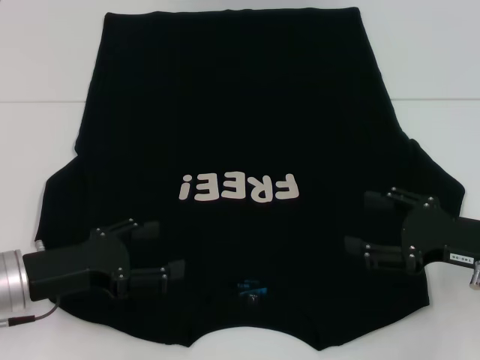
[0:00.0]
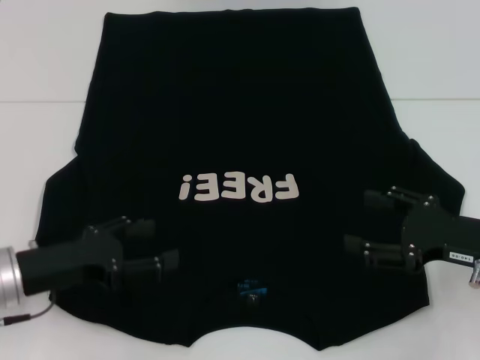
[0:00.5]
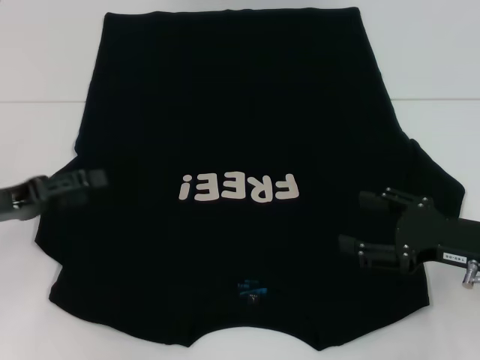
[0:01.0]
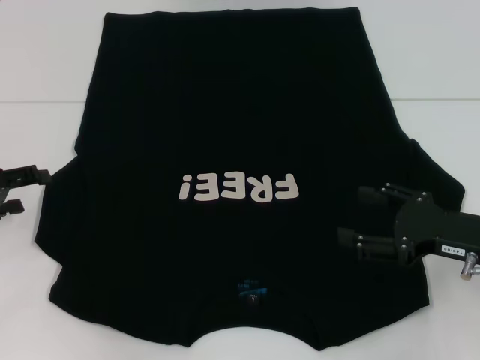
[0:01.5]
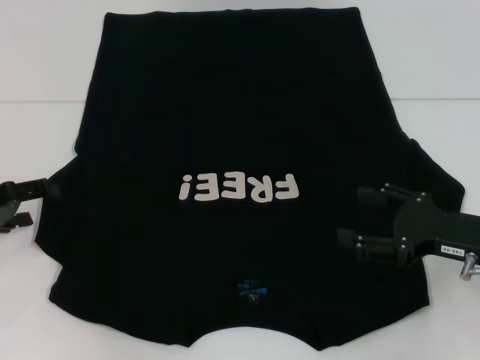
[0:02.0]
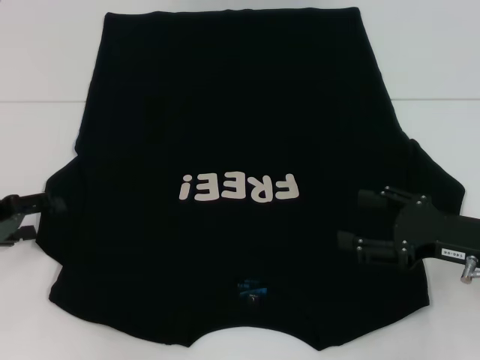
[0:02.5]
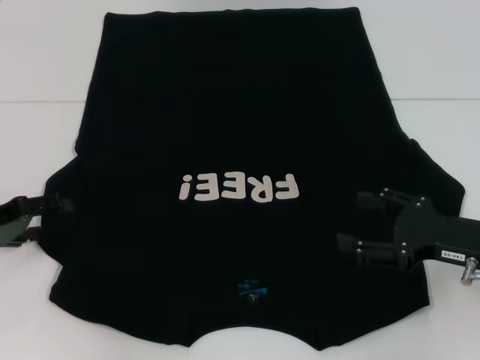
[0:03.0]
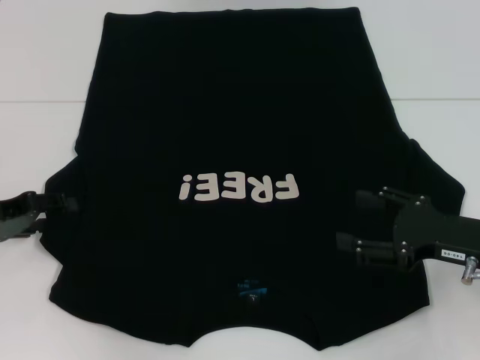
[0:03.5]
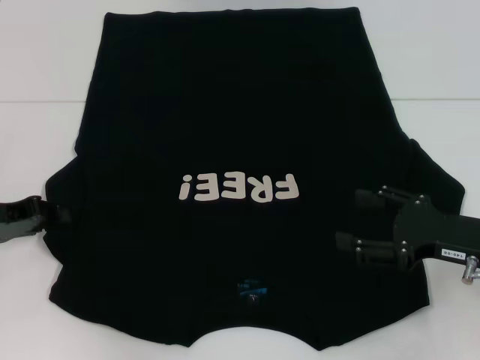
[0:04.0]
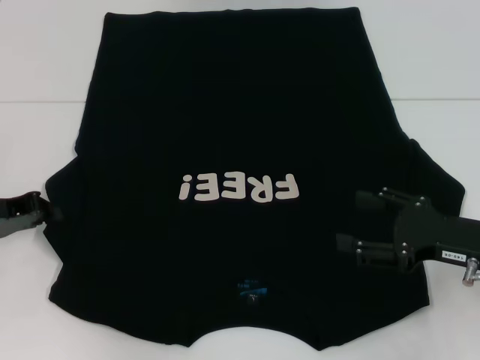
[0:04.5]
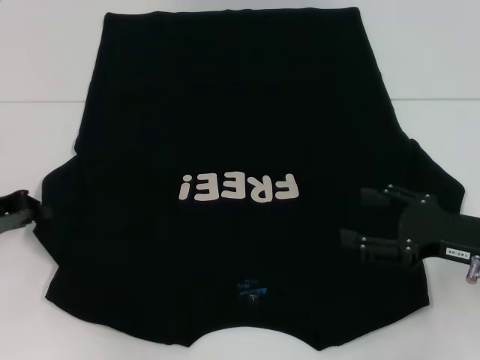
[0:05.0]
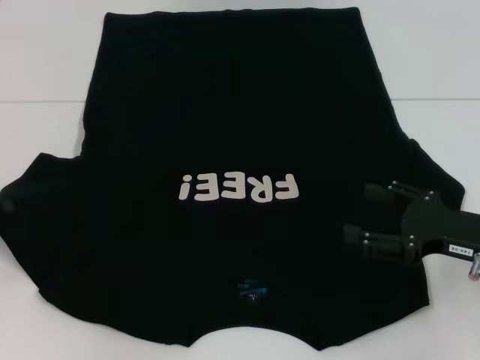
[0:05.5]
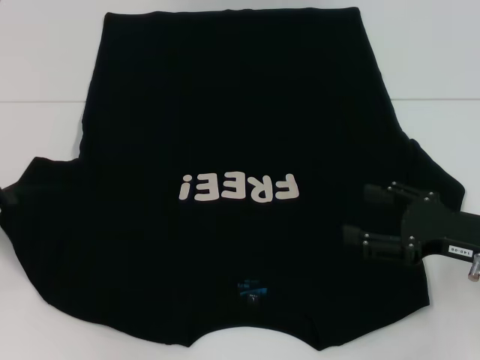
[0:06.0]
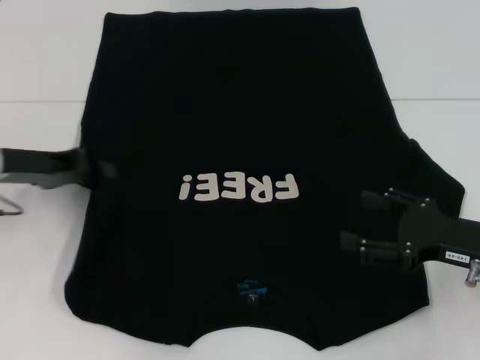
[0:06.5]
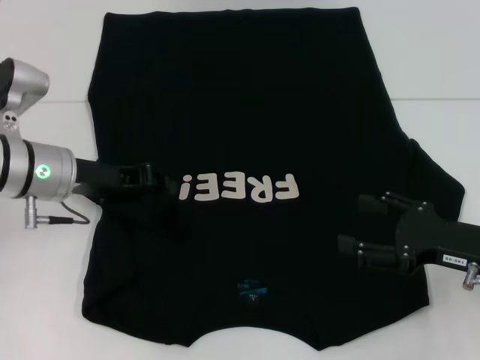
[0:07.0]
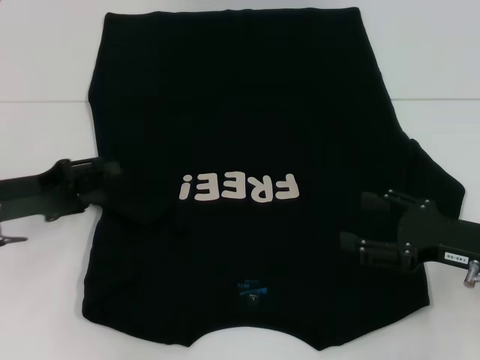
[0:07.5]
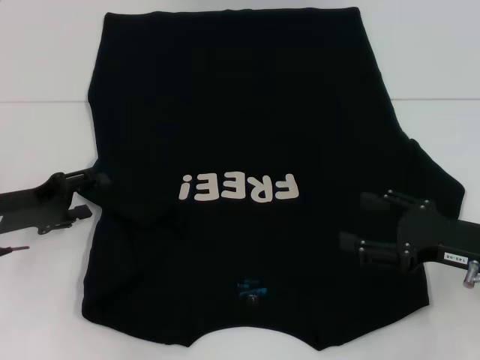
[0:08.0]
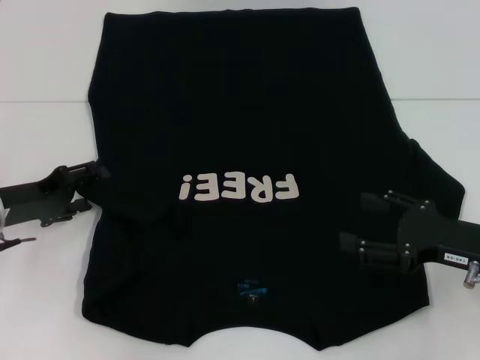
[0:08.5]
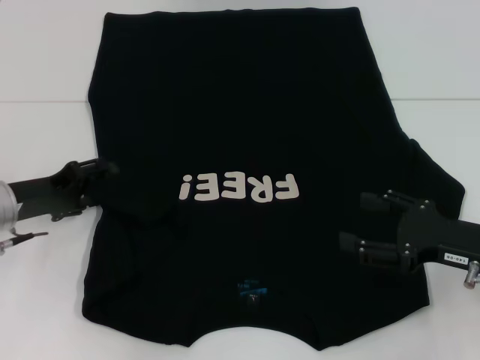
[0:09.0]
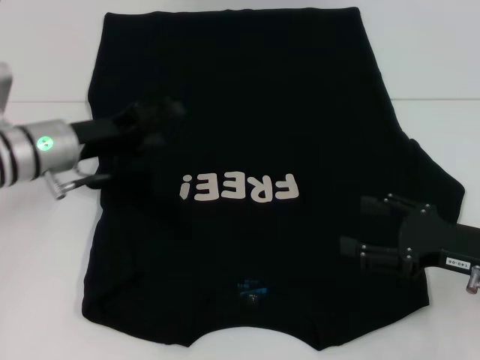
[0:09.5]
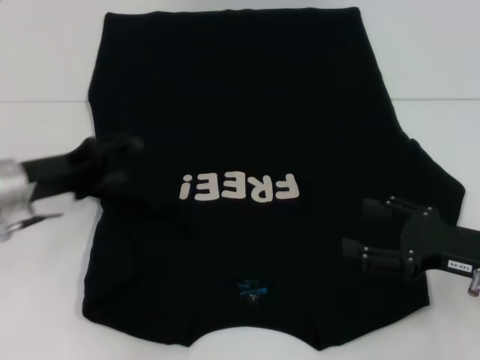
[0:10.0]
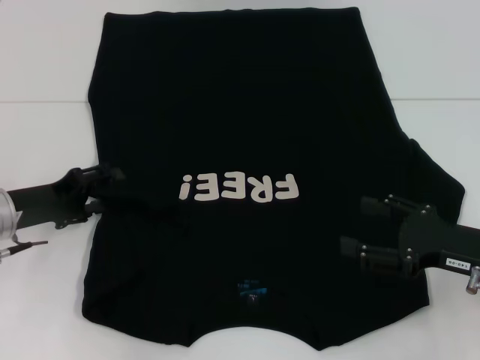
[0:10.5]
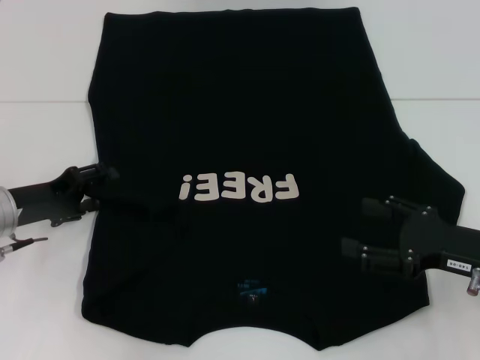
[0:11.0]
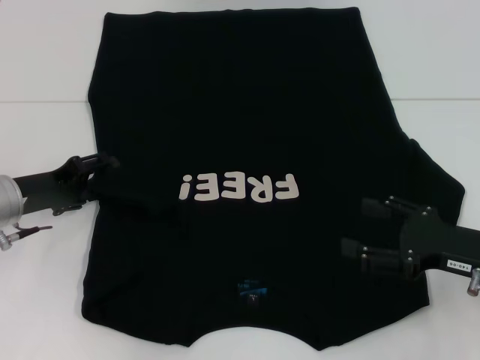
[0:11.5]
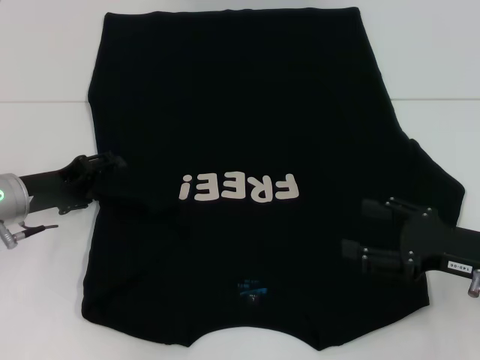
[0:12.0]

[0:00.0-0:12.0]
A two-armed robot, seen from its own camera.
0.0 to 2.0 s: The left gripper moves to the left and forward, some 10 cm.
2.0 to 4.0 s: The left gripper closes its fingers.
4.0 to 6.0 s: The left gripper shifts by approximately 5 cm, and closes its fingers.
6.0 to 8.0 s: The left gripper shifts some 5 cm to the right, and opens.
10.0 to 12.0 s: The grippers make only small movements.

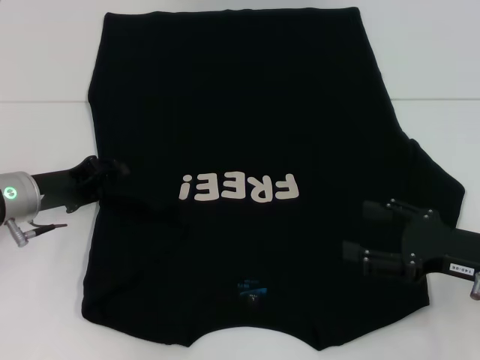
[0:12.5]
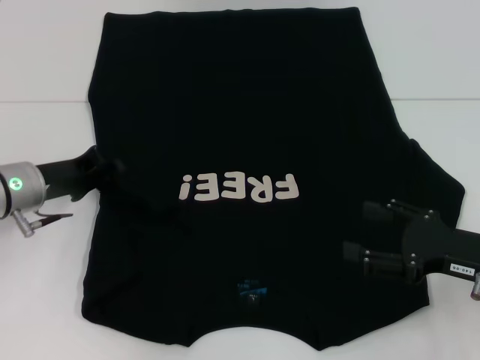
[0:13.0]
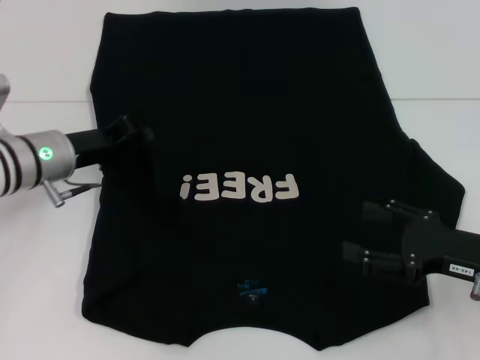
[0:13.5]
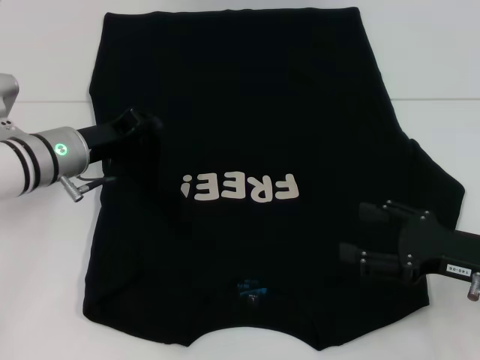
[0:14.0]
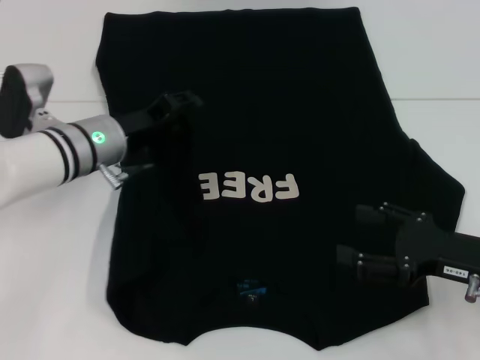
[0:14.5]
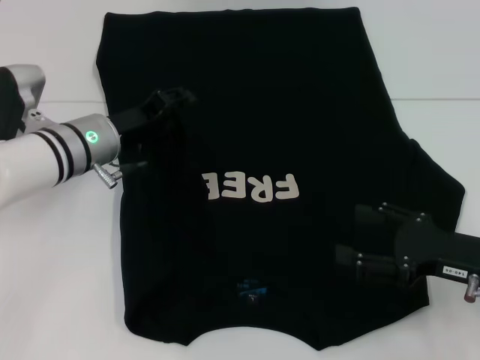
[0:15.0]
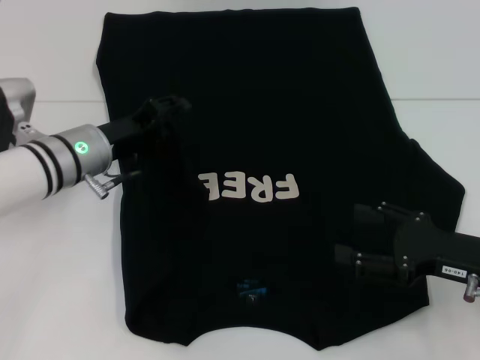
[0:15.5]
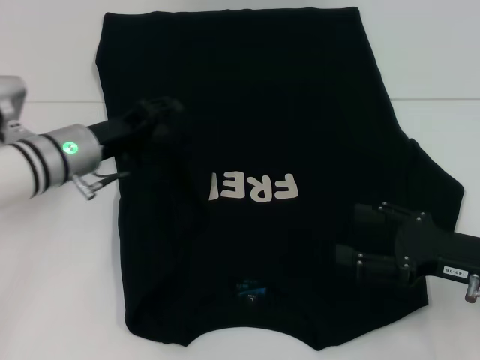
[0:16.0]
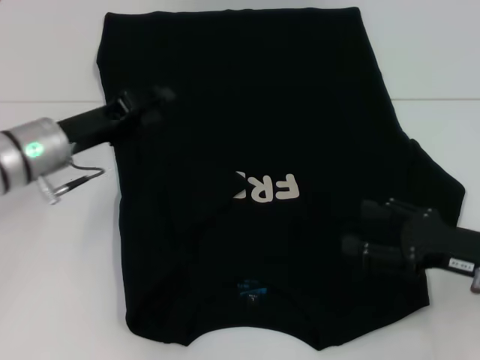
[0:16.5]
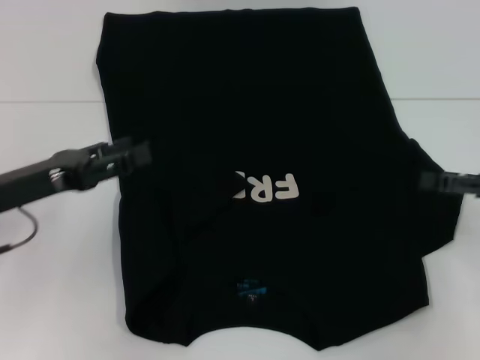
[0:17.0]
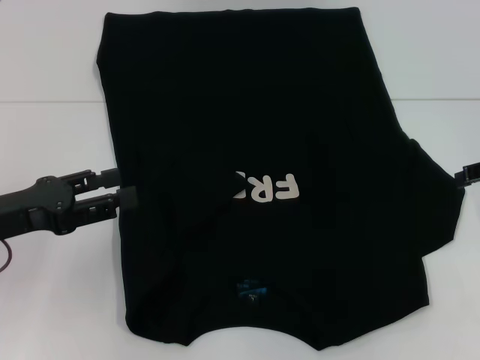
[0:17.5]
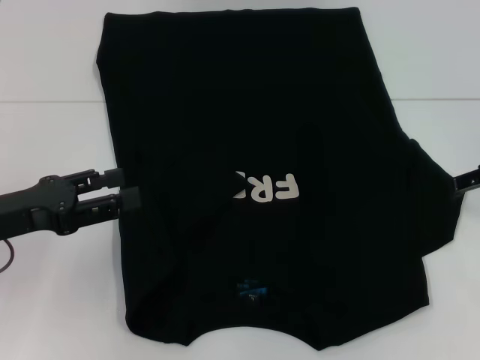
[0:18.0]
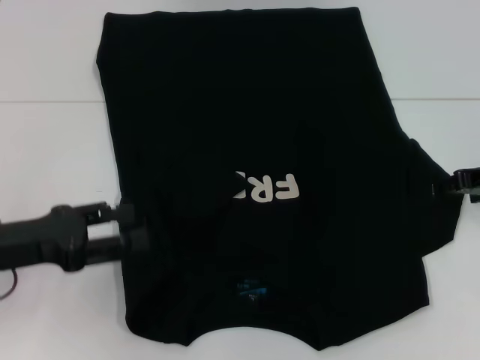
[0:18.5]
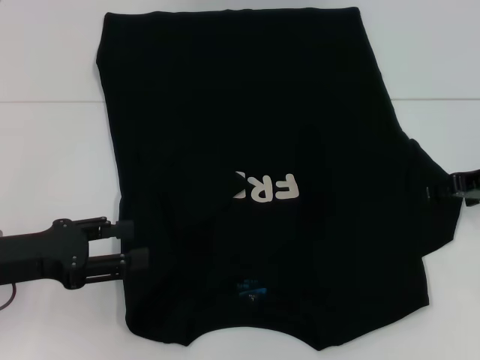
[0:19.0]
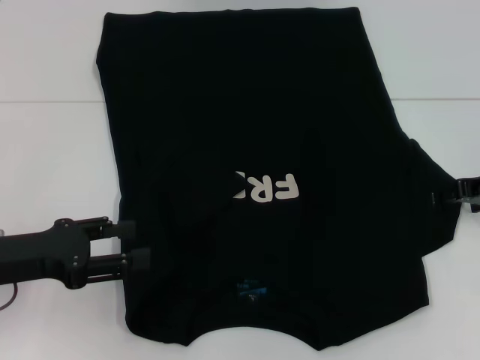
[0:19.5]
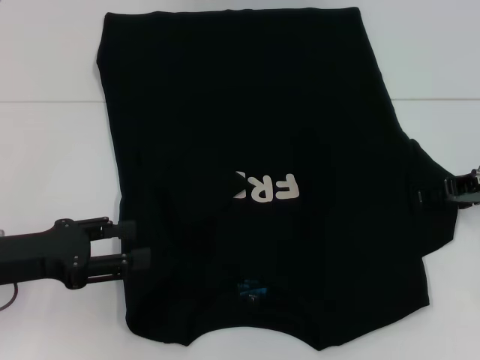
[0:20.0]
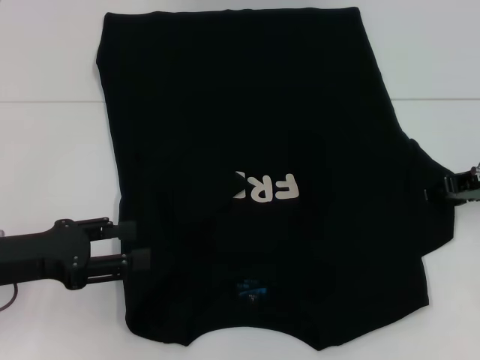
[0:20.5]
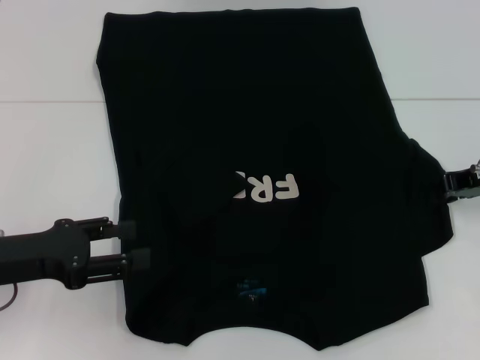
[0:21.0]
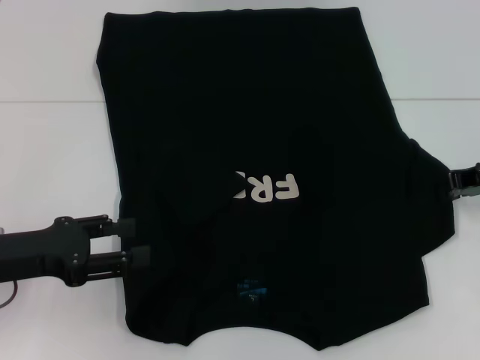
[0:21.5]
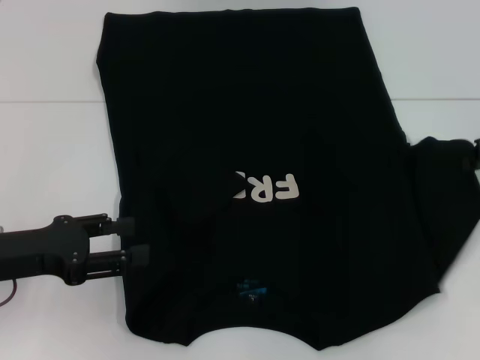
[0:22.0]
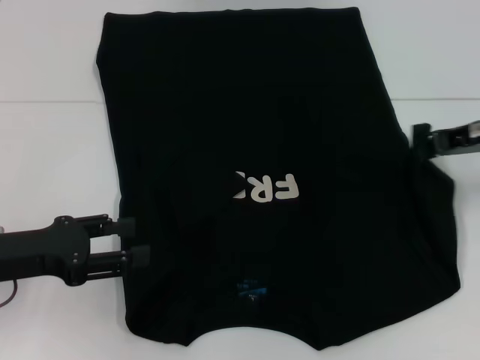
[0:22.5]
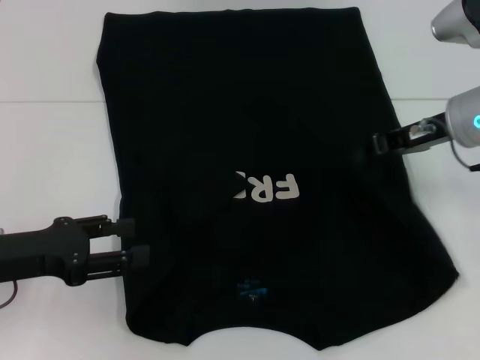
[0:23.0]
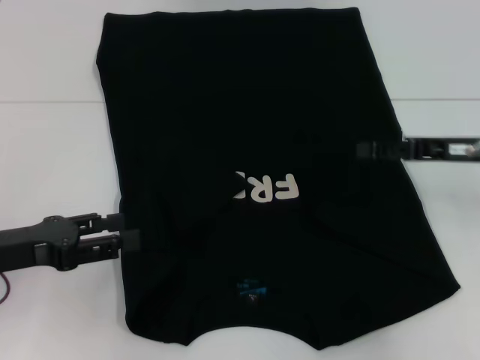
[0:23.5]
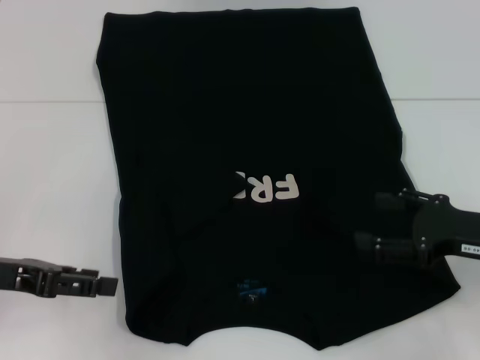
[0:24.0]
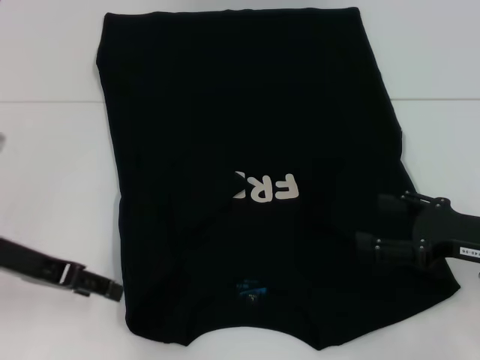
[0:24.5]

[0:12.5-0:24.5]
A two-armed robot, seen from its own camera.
Step, 12.5 to 16.0 s: Fold the bottom left sleeve with your left hand.
Step, 16.5 to 23.5 s: Fold the bottom right sleeve with your right hand.
12.5 to 14.5 s: The left gripper shifts approximately 10 cm to the right, and closes, then opens again.
14.5 to 16.5 s: The left gripper travels to the left by some 5 cm.
16.5 to 18.5 s: The right gripper goes approximately 15 cm forward and upward. Meanwhile the left gripper is displaced backward and to the left by some 10 cm.
18.5 to 20.5 s: The grippers stay close to where they were, moving slightly.
20.5 to 22.5 s: The right gripper closes its fingers.
22.5 to 24.5 s: The left gripper shifts by approximately 5 cm; the right gripper shifts about 15 cm backward and downward, and opens up.

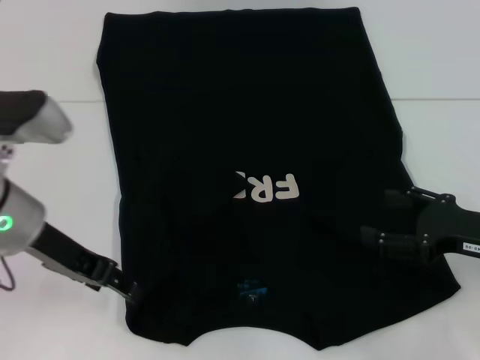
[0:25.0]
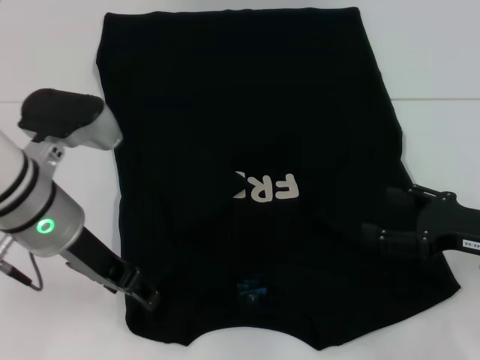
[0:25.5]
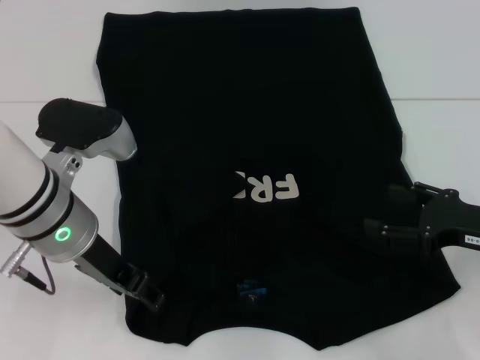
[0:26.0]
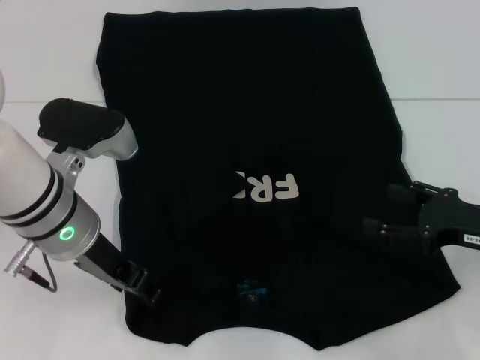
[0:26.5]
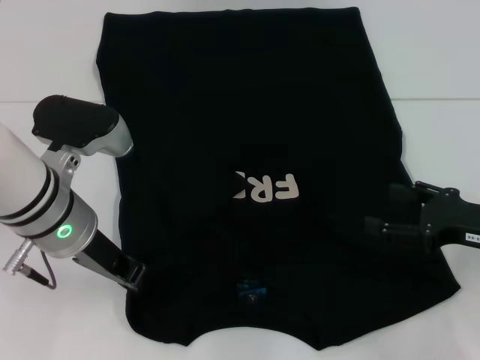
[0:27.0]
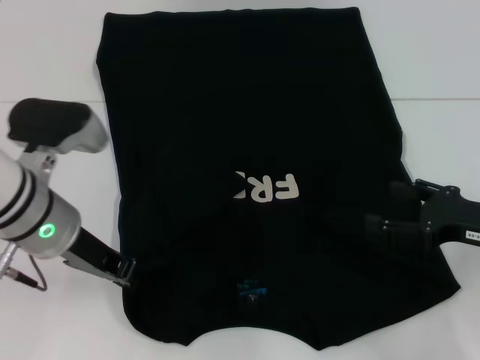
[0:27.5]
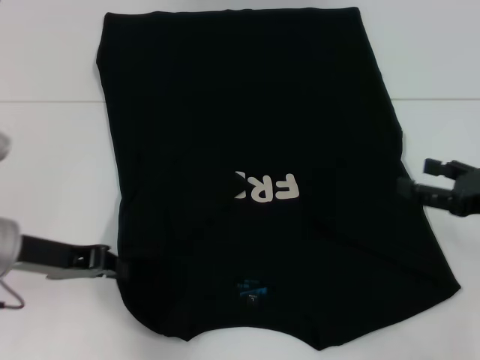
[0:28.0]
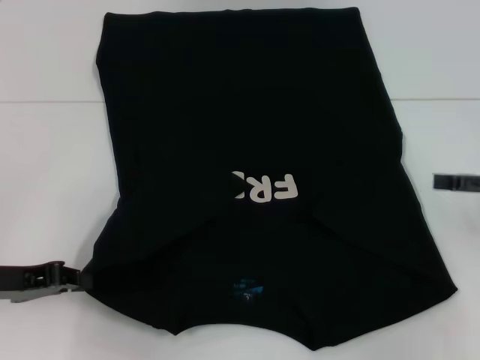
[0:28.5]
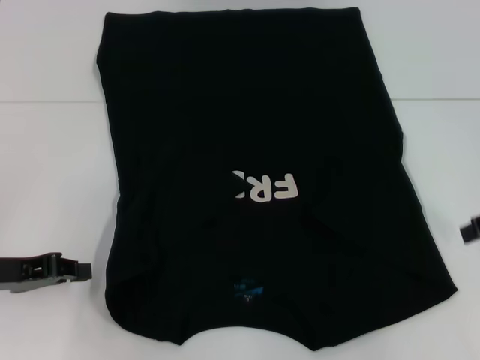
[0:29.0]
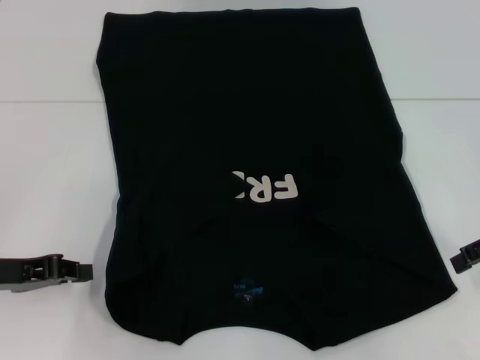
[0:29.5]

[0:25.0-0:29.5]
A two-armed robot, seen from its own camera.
25.0 to 27.0 s: The left gripper moves about 5 cm, and closes.
27.0 to 29.5 s: The left gripper is displaced to the left by some 15 cm. Meanwhile the right gripper is displaced upward by about 10 cm.
